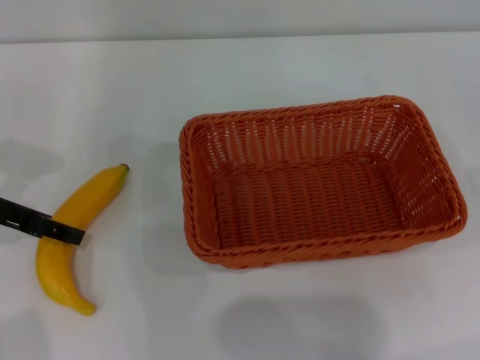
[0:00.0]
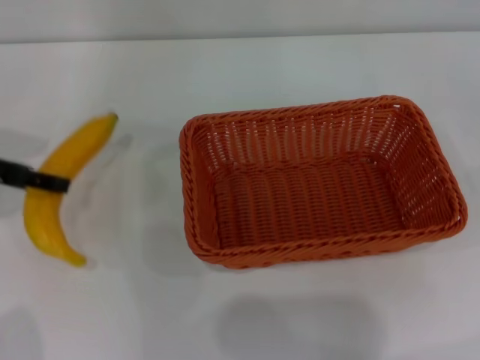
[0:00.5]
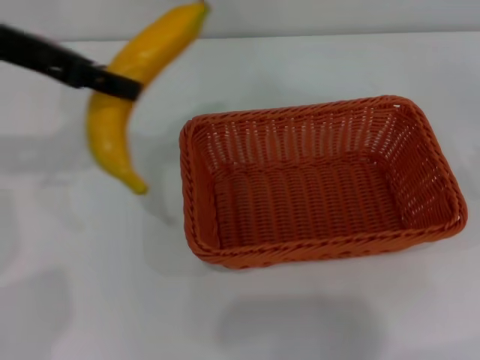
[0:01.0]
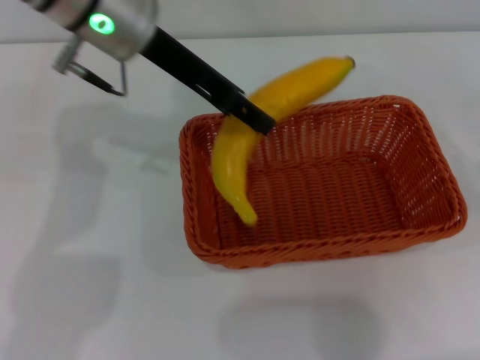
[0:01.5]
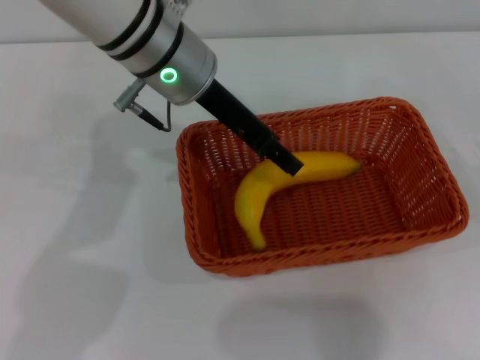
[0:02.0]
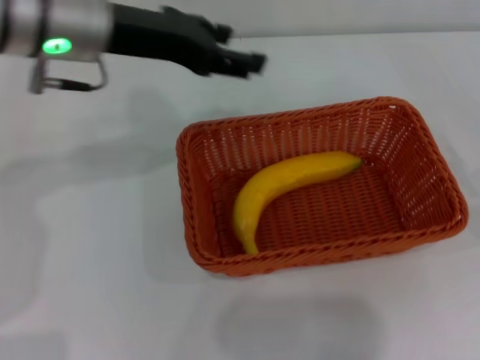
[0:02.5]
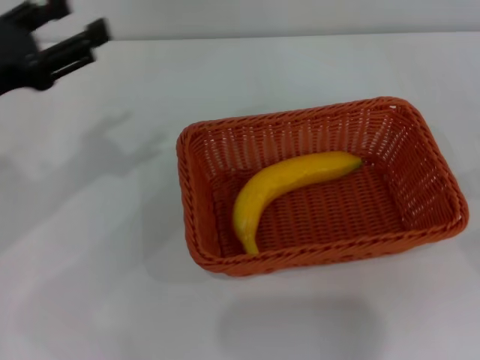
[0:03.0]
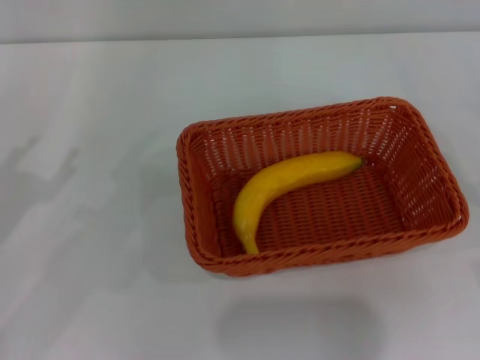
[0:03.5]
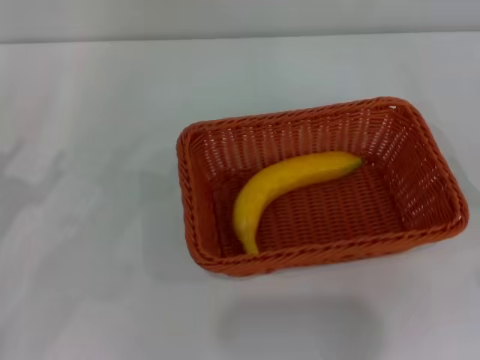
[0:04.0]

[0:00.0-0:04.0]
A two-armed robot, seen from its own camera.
Step, 0:01.0 to 0:02.0: Place the banana into the light basket with the left gripper.
0:00.0 to 0:02.0: The left gripper travels to the right by some 25 cm.
0:02.0 to 0:04.0: The right gripper travels downward and backward by roughly 10 cm, and opens. Meanwhile the left gripper is displaced to the left, backward and downward by some 35 cm, and opens up.
